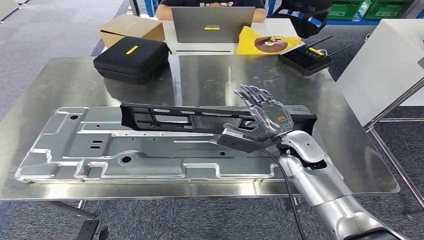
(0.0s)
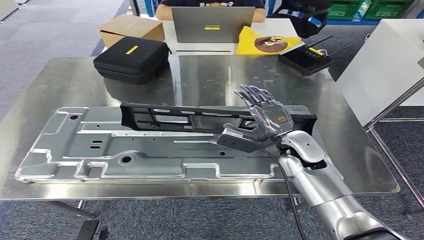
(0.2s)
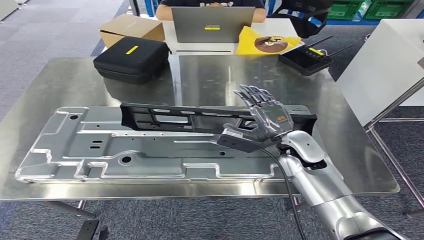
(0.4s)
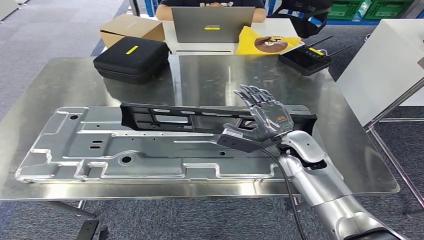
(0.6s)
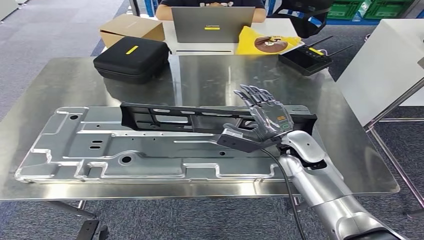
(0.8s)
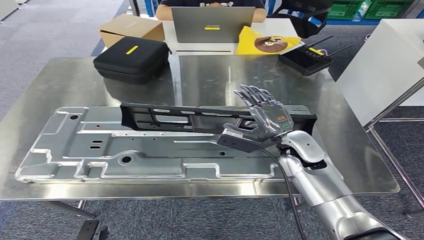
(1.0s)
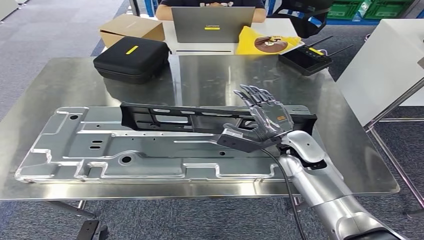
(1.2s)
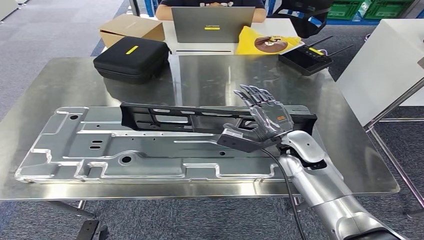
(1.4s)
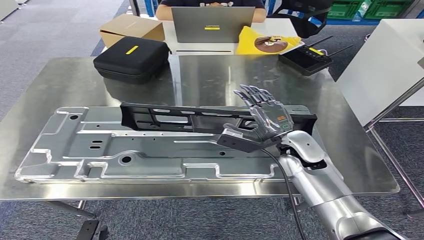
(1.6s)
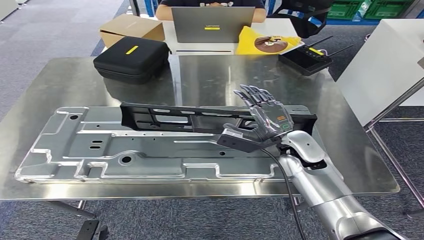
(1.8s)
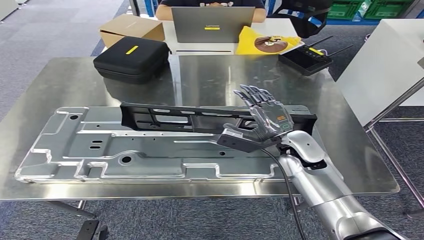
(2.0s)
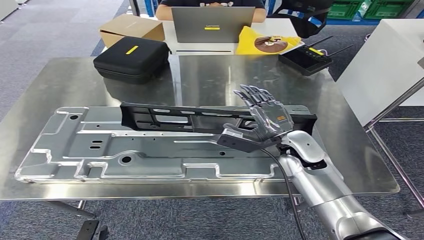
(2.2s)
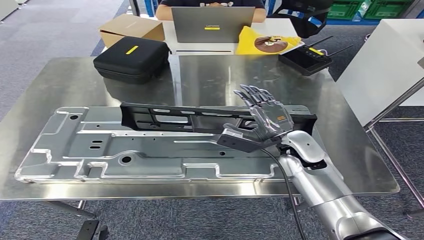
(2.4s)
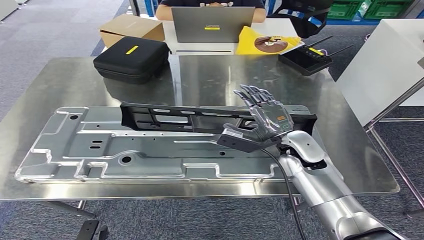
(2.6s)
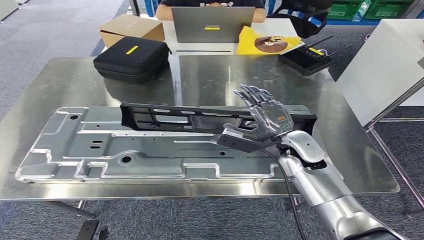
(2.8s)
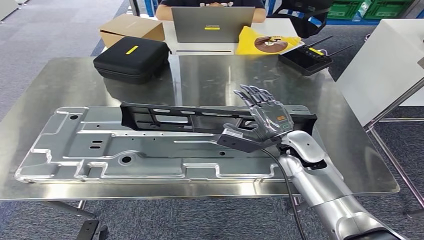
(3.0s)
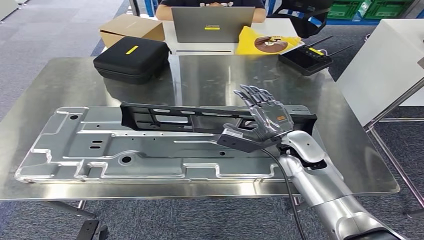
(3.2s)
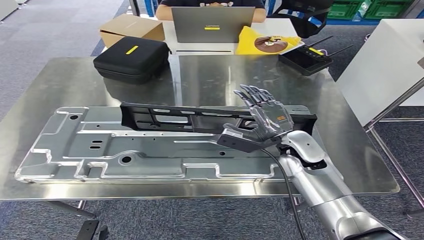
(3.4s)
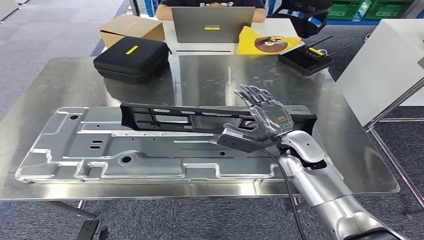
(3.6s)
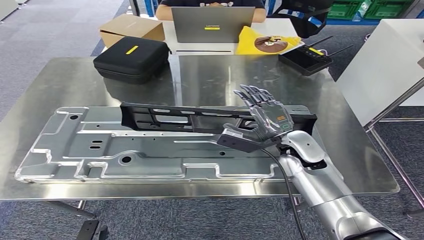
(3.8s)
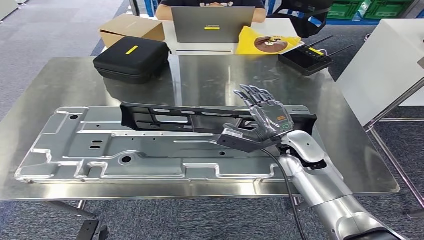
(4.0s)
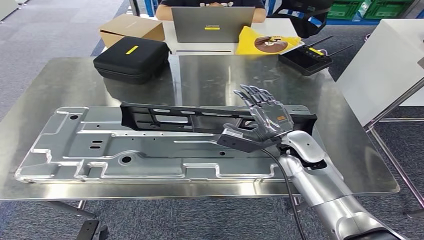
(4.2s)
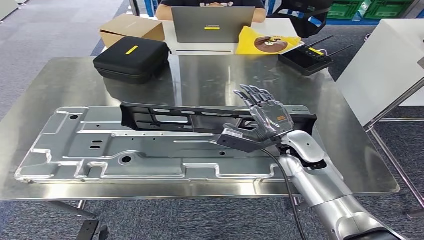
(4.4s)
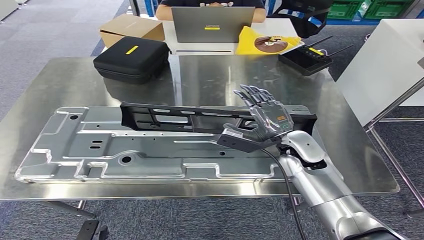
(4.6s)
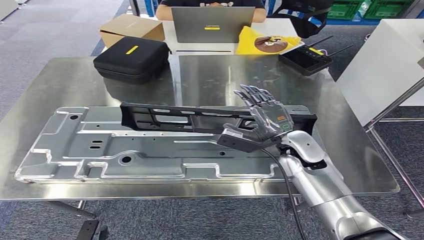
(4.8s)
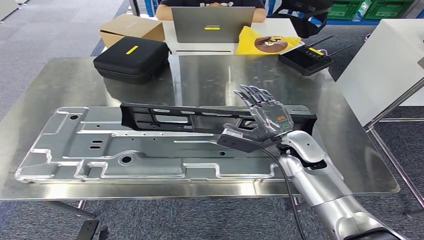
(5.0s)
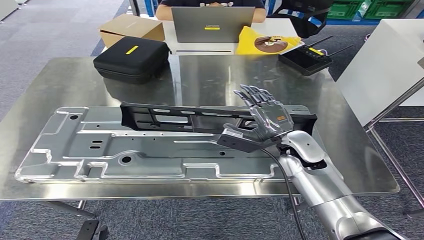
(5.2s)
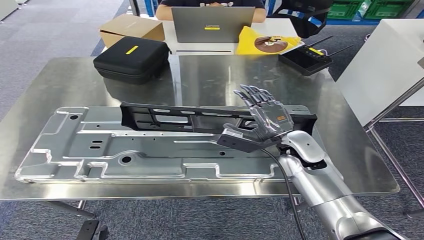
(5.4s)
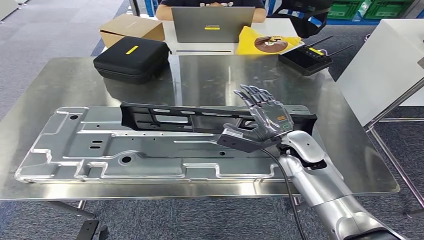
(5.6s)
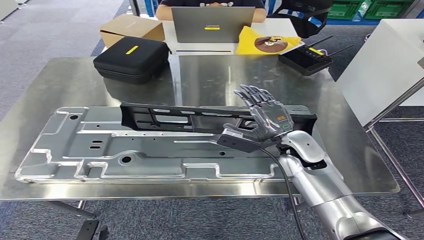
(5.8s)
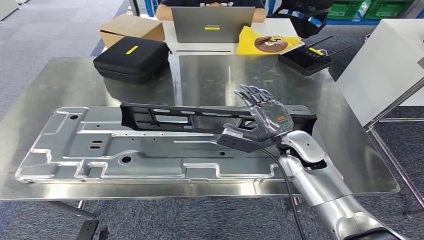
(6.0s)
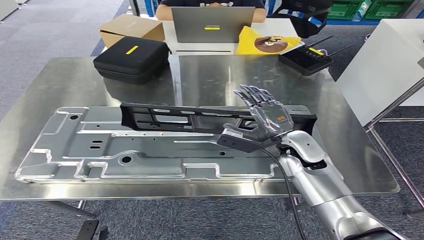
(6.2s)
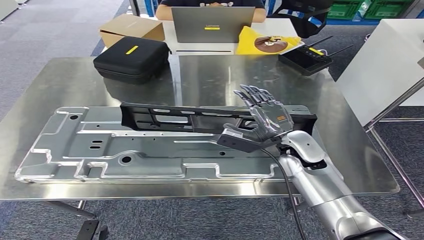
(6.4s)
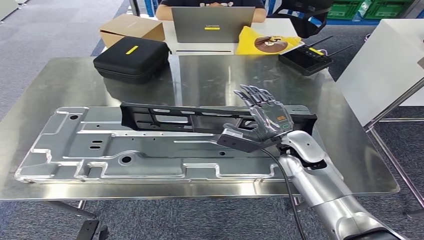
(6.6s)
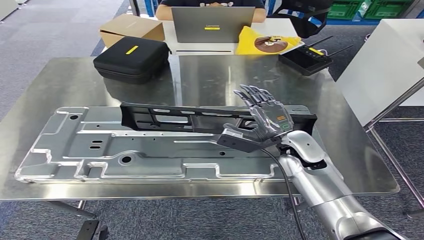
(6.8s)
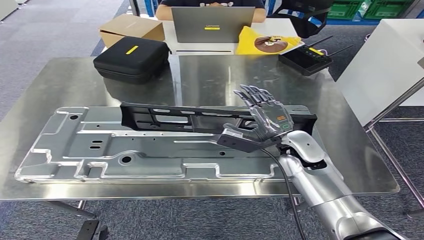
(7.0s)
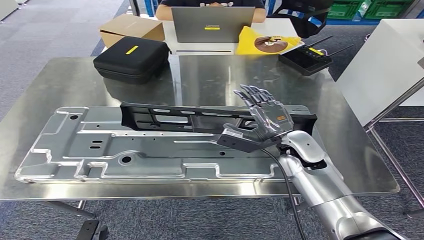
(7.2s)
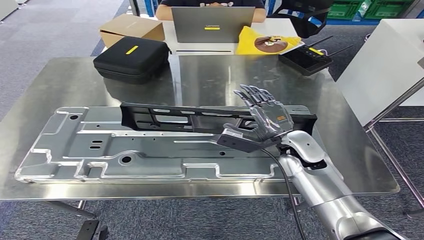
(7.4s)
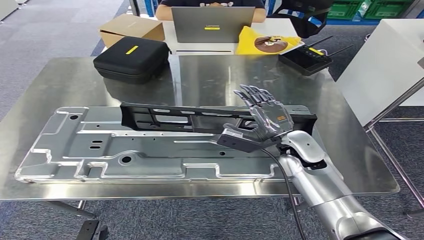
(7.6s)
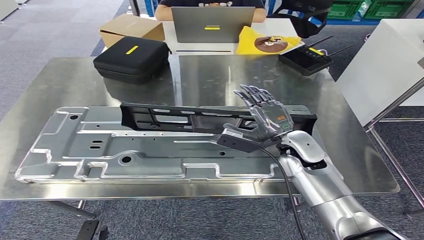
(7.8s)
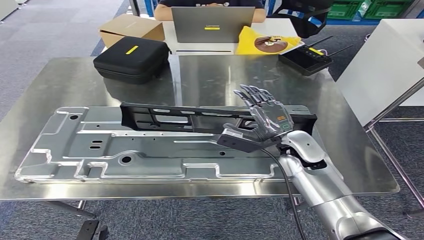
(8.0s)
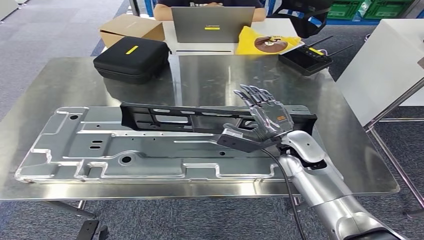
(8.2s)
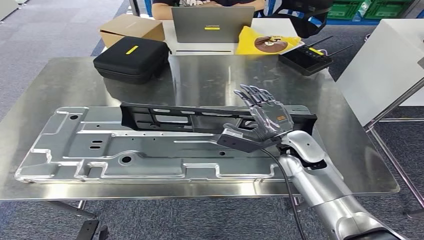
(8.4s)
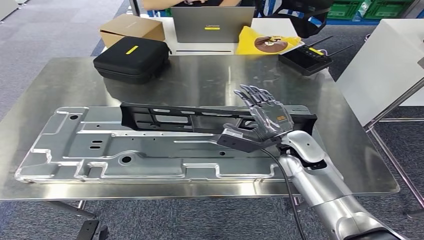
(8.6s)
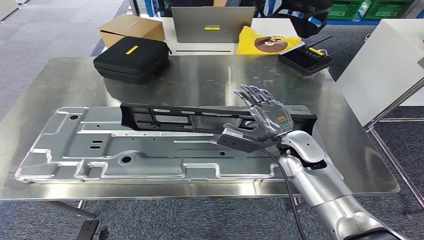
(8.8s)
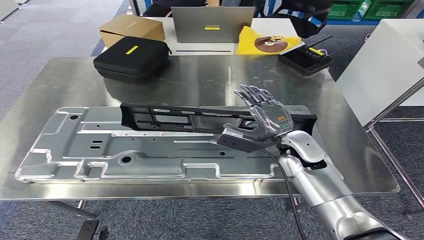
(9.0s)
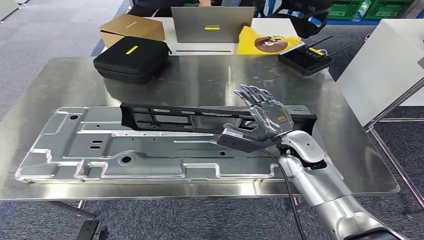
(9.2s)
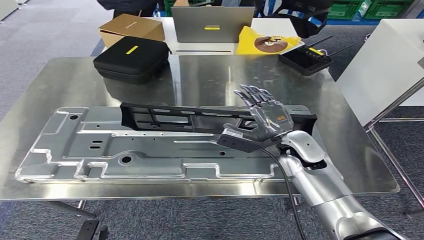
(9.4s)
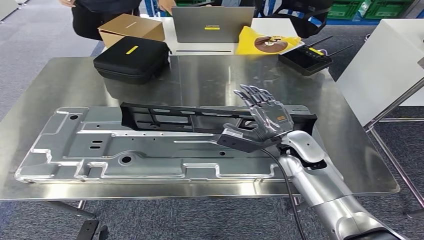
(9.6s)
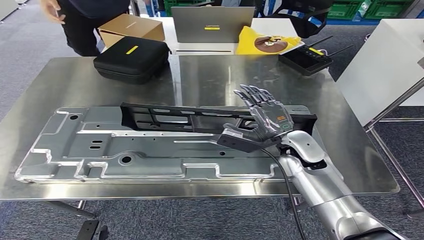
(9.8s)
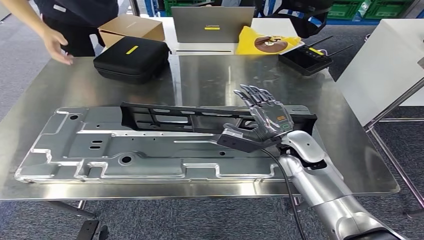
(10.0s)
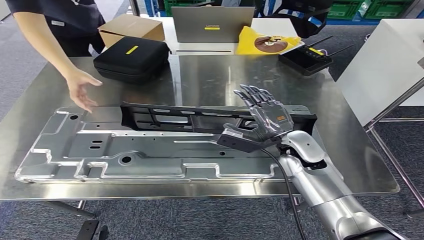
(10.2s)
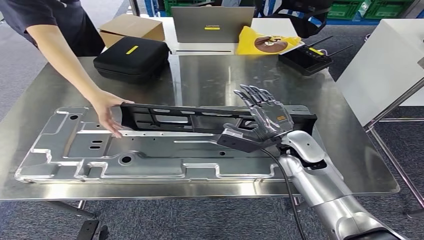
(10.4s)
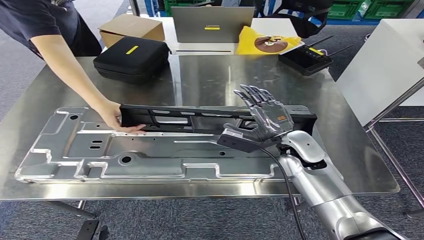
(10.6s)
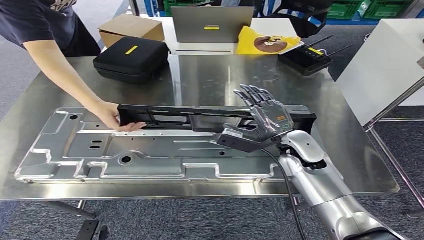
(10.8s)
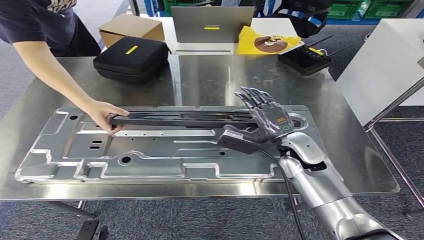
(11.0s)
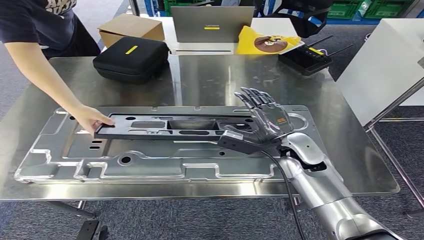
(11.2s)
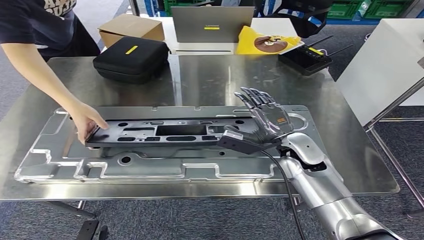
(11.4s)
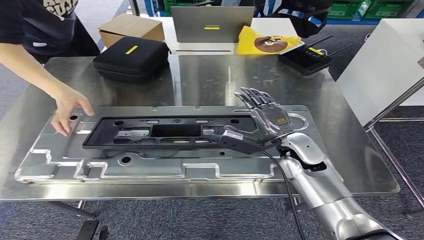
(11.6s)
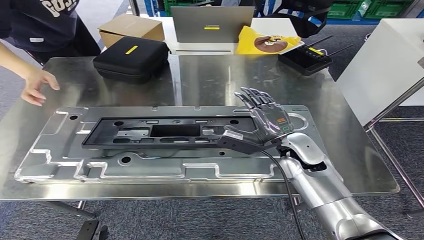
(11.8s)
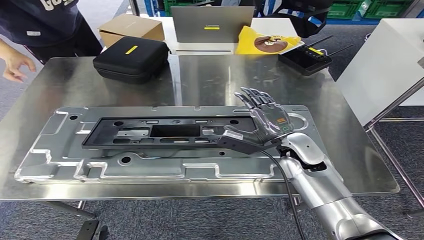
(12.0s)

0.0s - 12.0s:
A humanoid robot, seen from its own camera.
0.0s - 12.0s: Neither hand changes place.

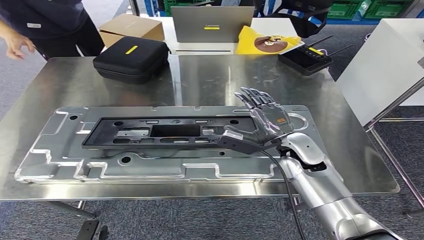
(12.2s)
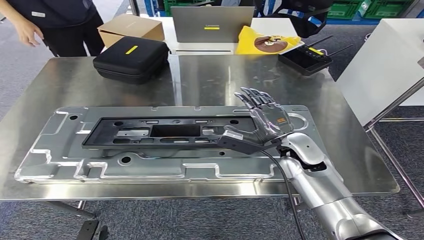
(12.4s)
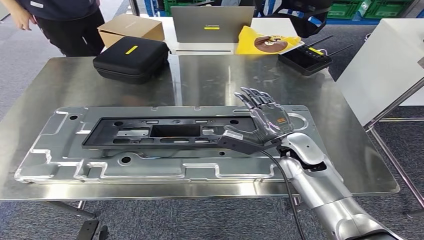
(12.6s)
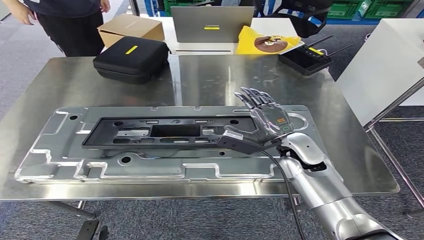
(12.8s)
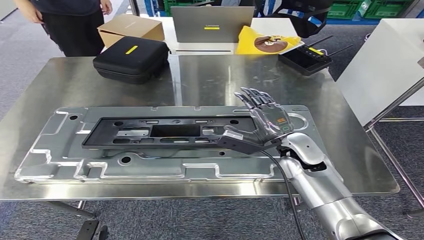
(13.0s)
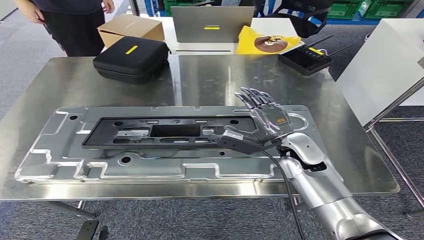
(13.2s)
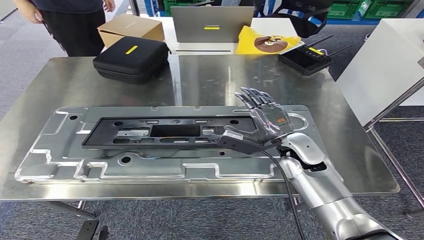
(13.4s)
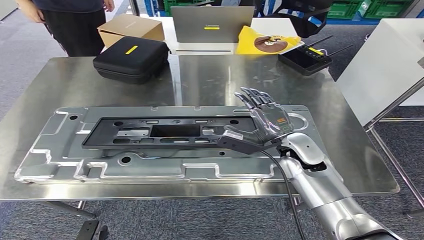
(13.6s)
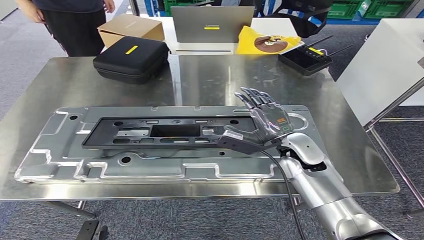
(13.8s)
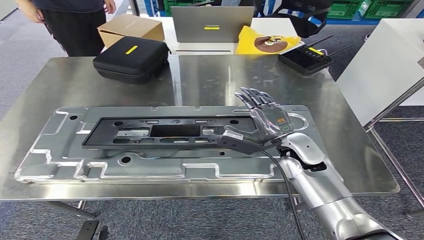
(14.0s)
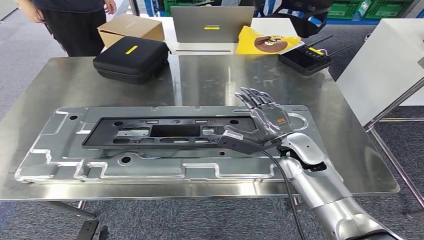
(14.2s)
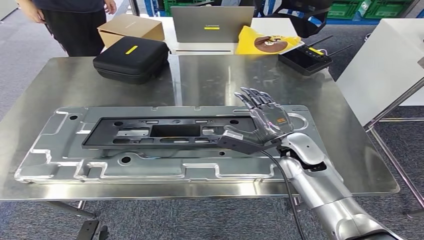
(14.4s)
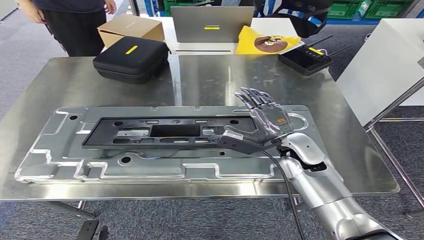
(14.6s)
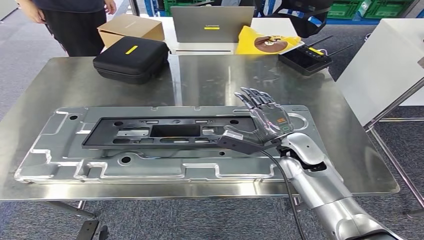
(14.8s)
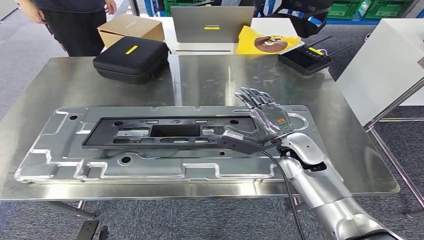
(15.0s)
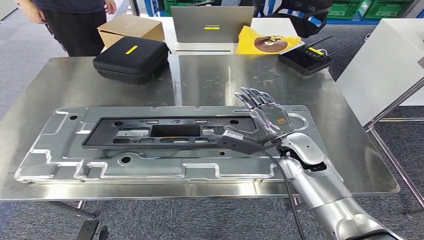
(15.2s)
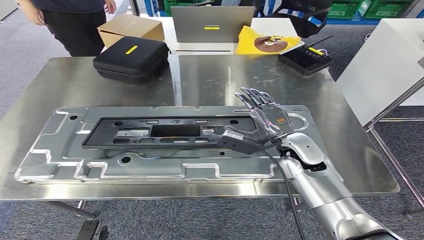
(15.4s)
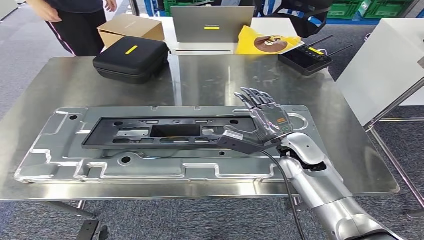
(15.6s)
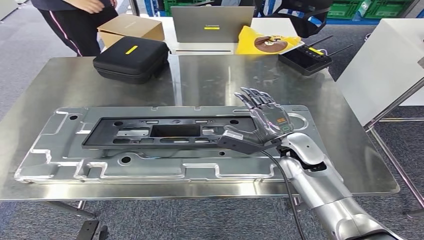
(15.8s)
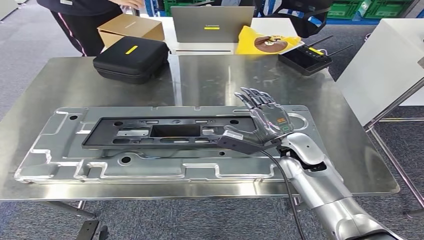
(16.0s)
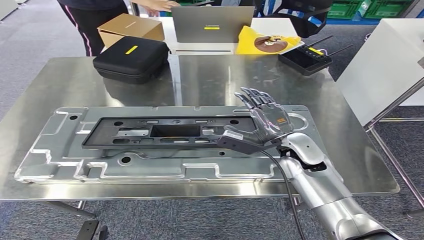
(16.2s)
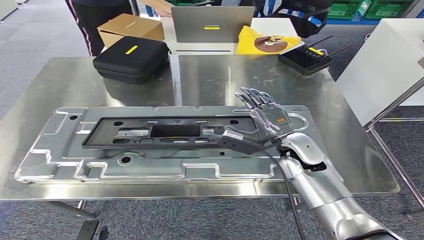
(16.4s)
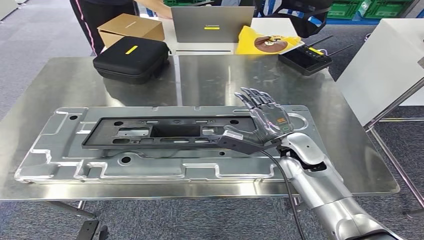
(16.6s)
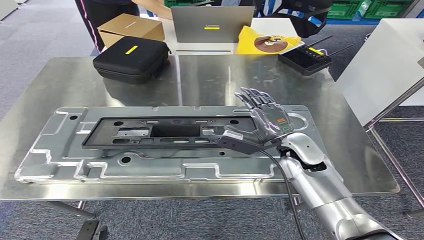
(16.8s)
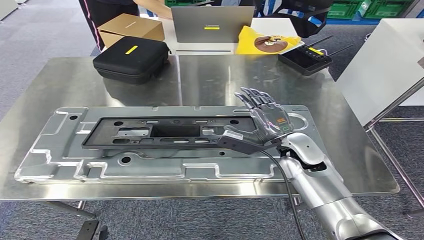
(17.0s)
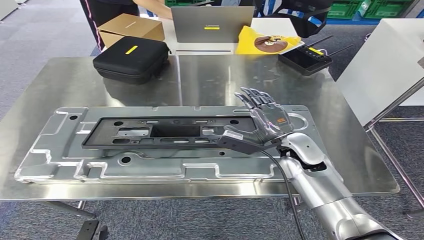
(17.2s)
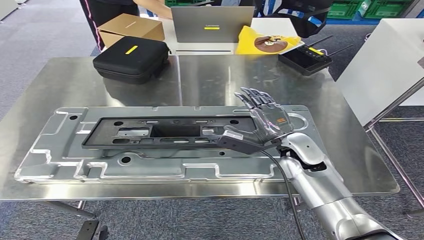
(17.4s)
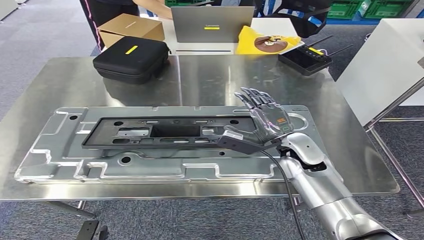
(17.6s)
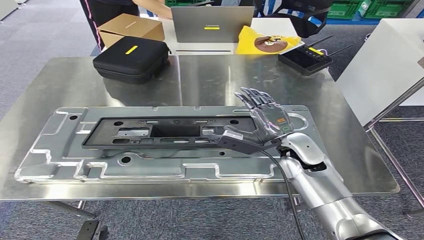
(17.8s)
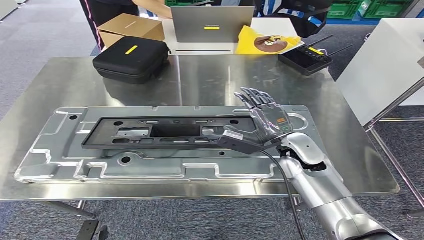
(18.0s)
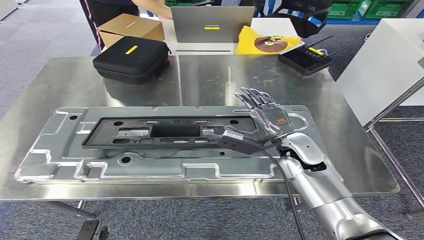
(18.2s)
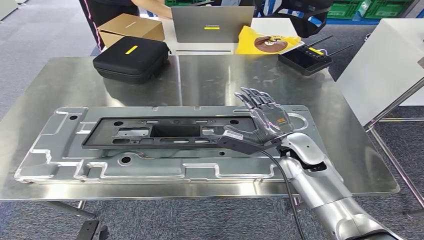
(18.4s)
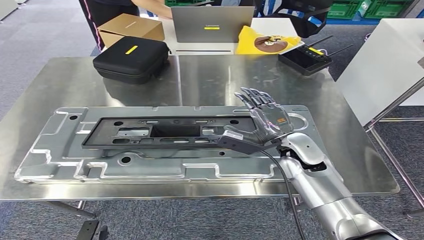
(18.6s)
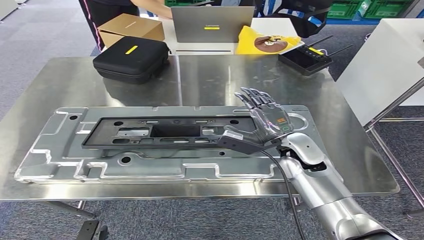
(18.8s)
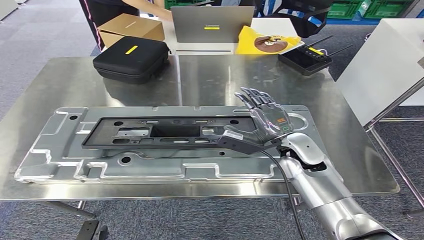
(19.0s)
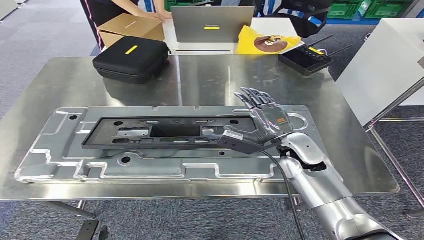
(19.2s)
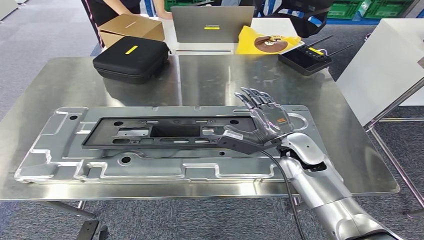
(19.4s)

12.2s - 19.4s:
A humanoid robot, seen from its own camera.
Step, 12.2s - 17.6s: Insert the large material into the corresponding slot on the workbench.
12.2s - 19.4s: Both hands stay about where they are.
